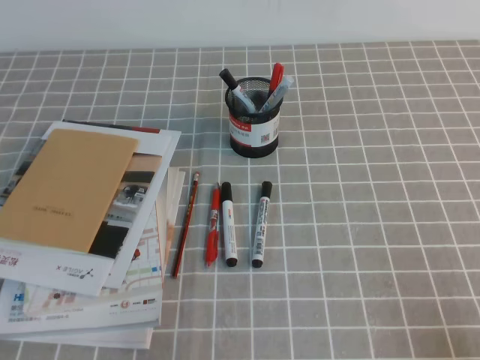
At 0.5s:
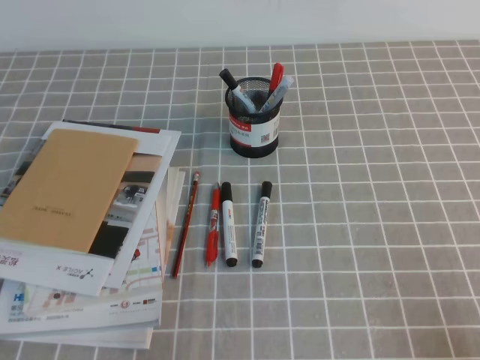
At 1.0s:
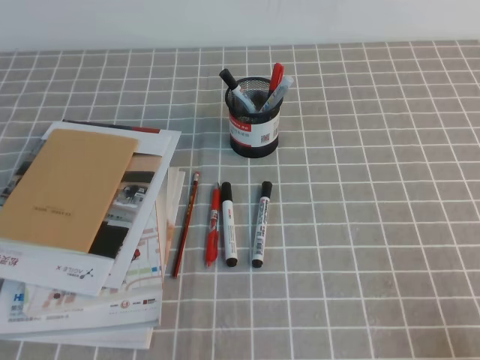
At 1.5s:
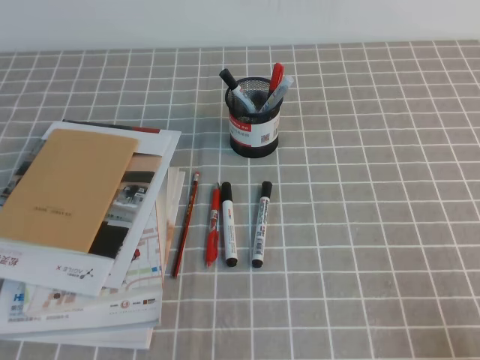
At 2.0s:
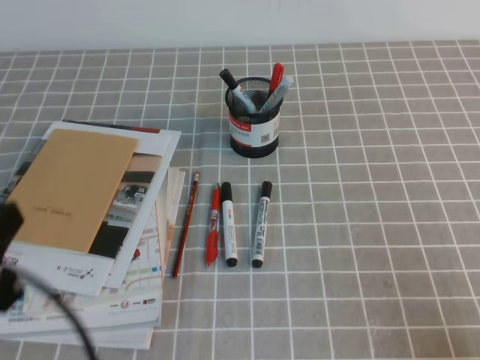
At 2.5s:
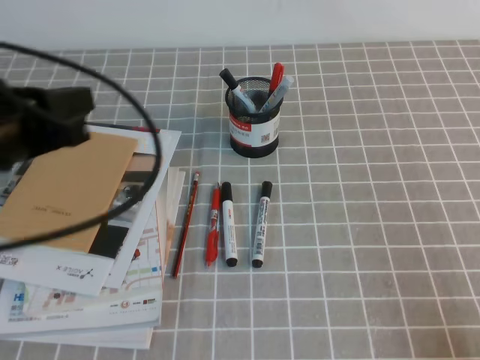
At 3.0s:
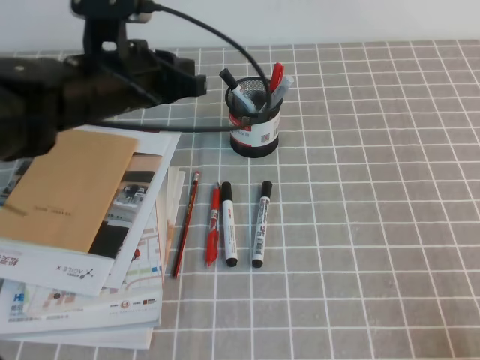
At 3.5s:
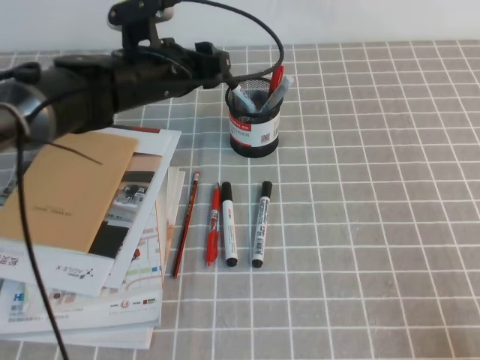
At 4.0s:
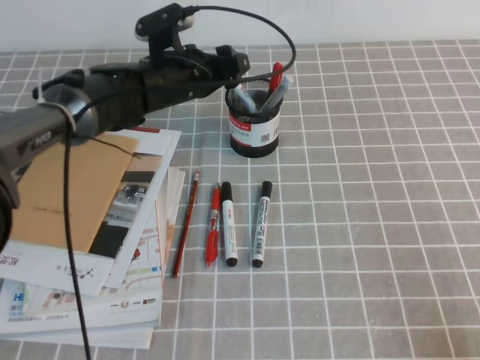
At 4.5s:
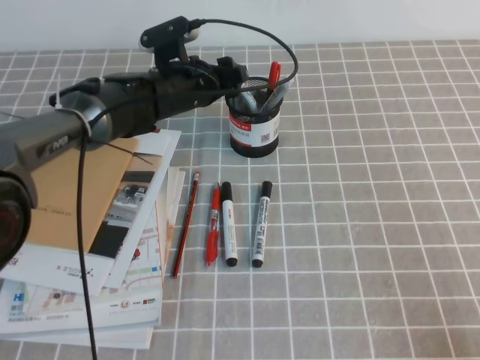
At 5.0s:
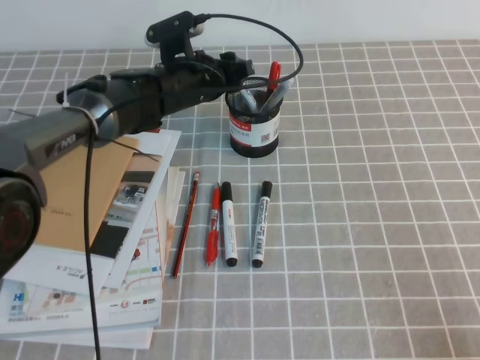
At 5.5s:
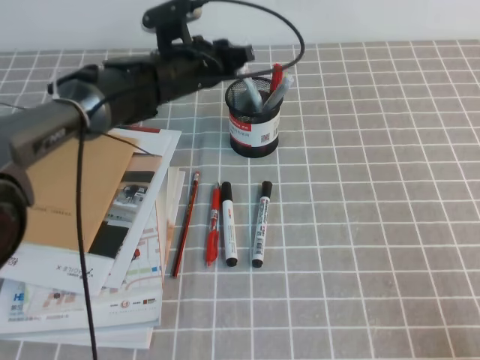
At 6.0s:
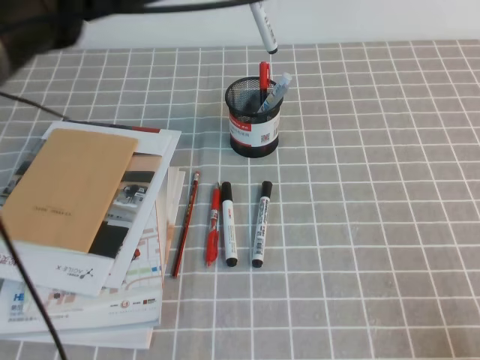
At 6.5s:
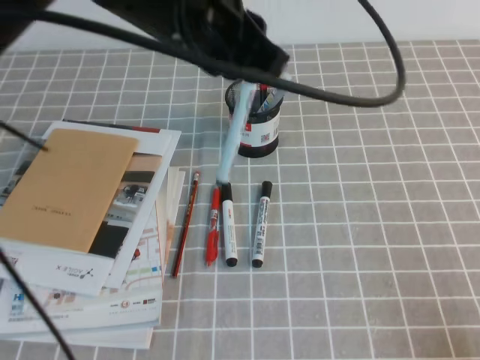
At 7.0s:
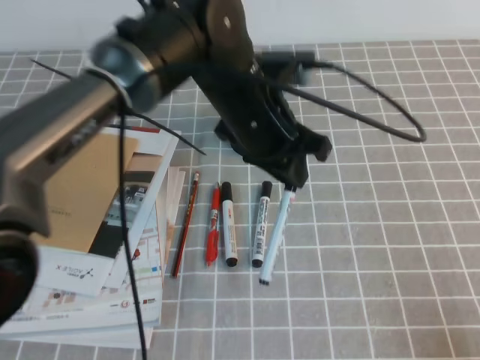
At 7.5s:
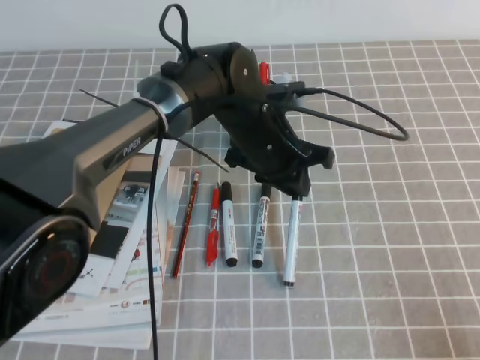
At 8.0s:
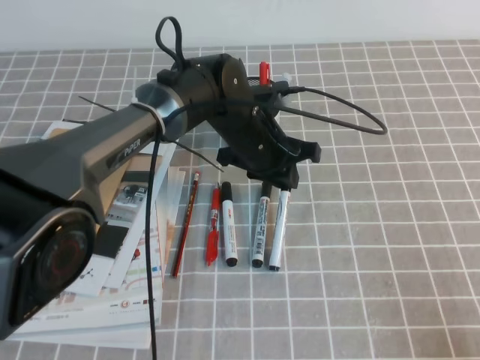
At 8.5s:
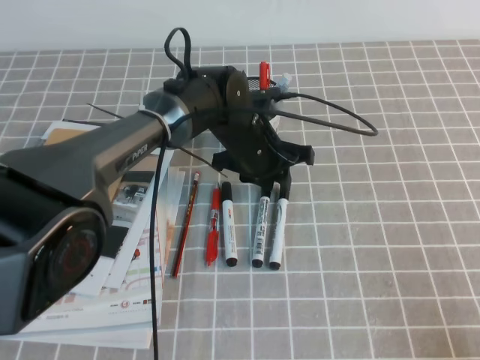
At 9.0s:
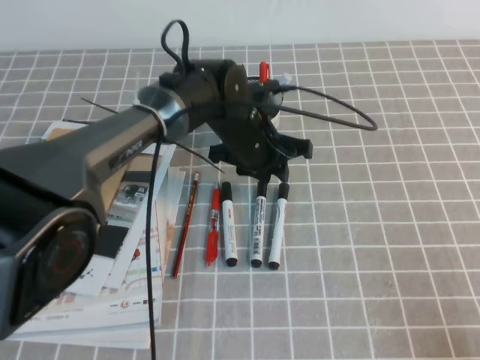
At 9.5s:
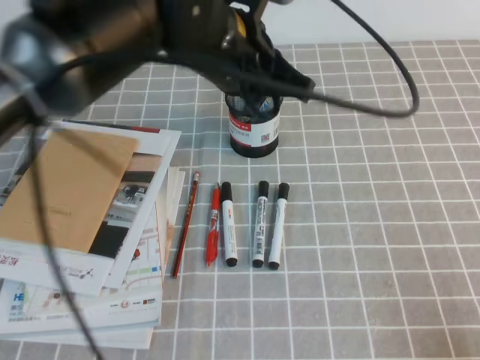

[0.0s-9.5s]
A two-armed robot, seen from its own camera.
0.0s to 2.0s: The left gripper shifts some 15 cm upward.
2.0s to 4.0s: The left gripper goes about 40 cm forward and to the right, and opens up.
4.0s to 5.5s: The left gripper closes its fingers.
5.5s to 7.5s: The left gripper shifts some 15 cm backward and to the right, and reaches some 15 cm upward, then returns.
7.5s to 9.5s: The left gripper travels upward by some 15 cm.

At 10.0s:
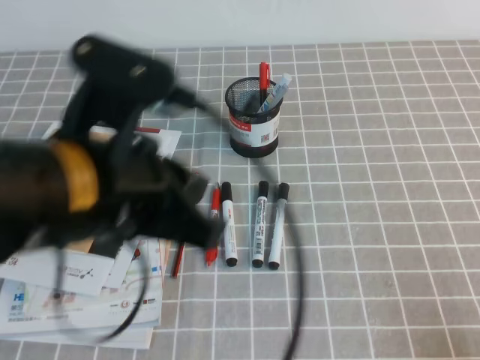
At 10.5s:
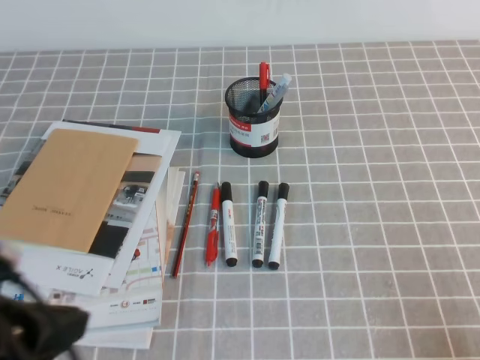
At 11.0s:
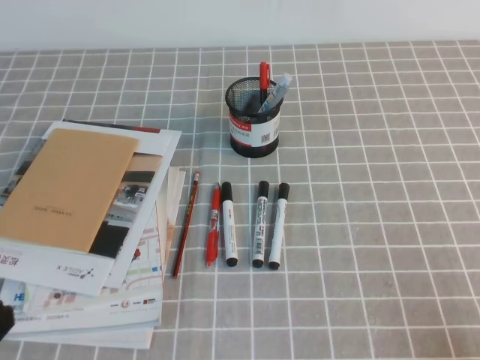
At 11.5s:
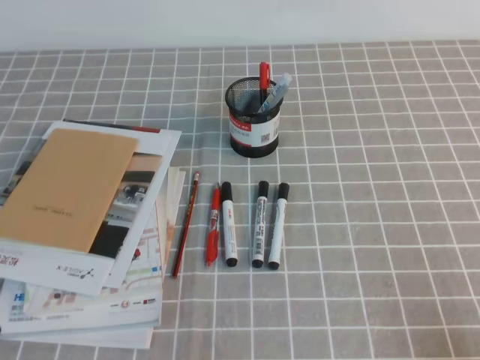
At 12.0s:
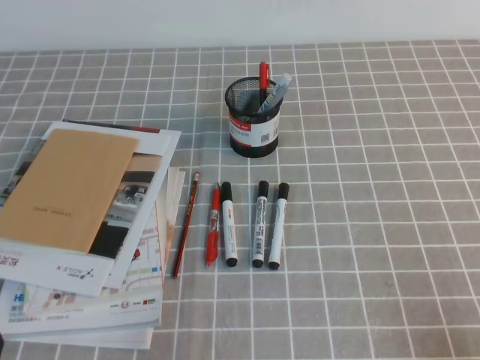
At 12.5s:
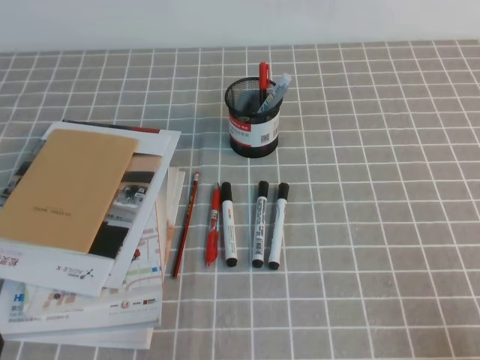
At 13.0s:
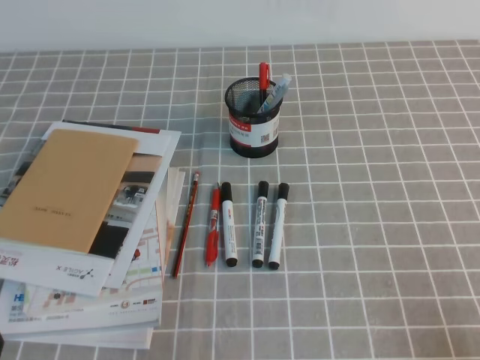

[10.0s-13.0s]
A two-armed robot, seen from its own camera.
Step, 10.0s to 13.0s: Pick up the pen from the pen holder.
10.0s to 11.5s: The left gripper goes some 25 cm downward, to the left and backward.

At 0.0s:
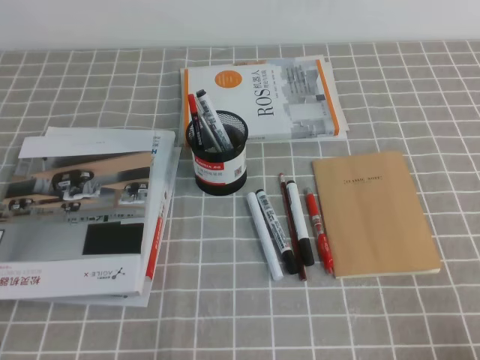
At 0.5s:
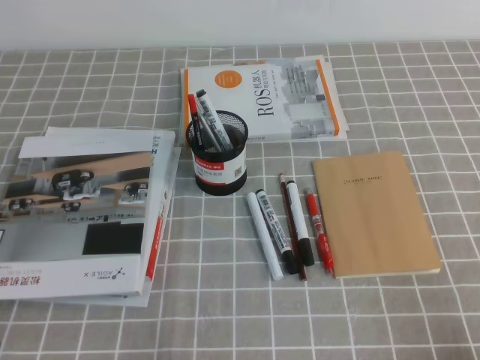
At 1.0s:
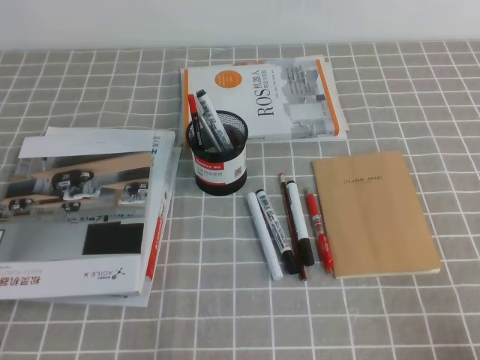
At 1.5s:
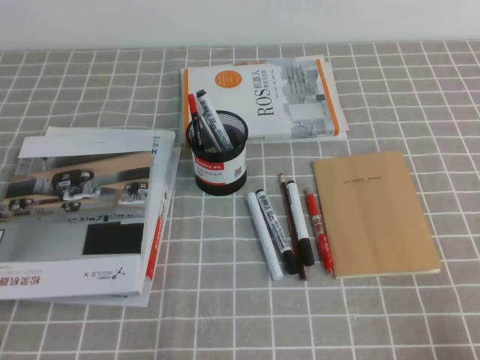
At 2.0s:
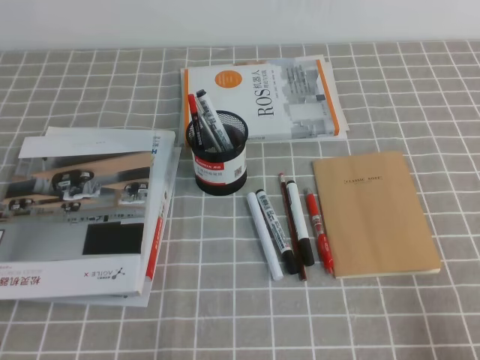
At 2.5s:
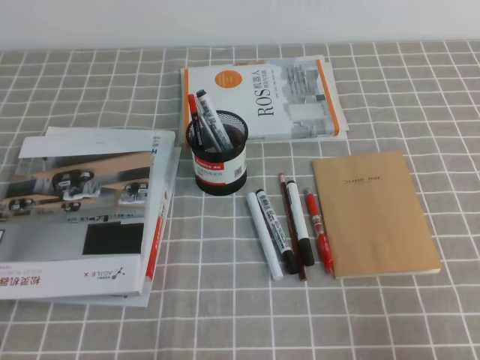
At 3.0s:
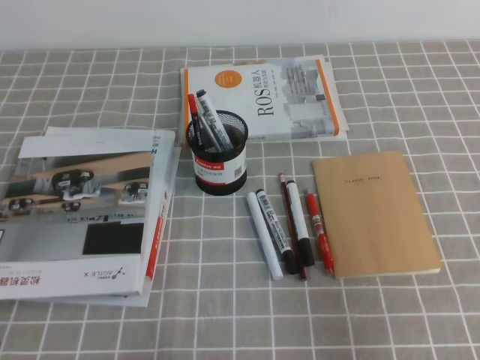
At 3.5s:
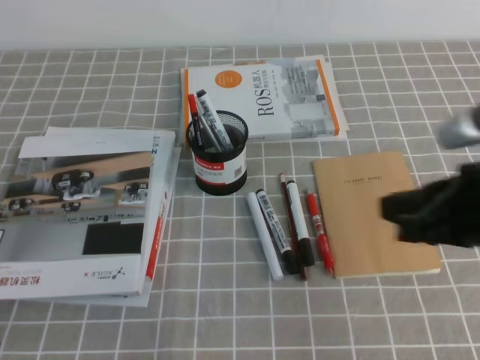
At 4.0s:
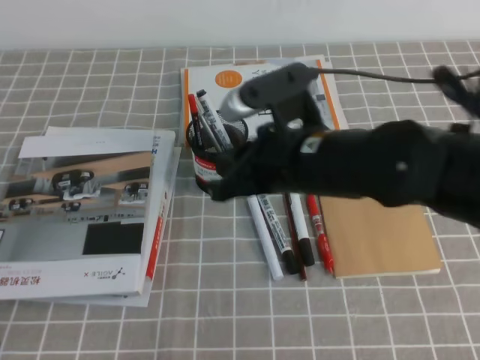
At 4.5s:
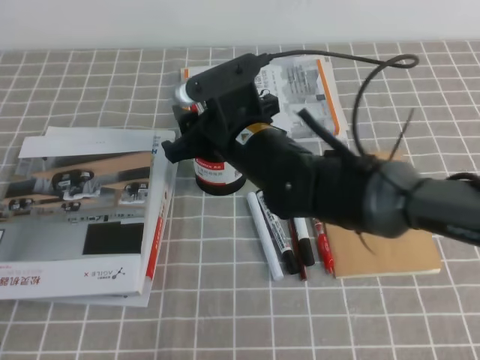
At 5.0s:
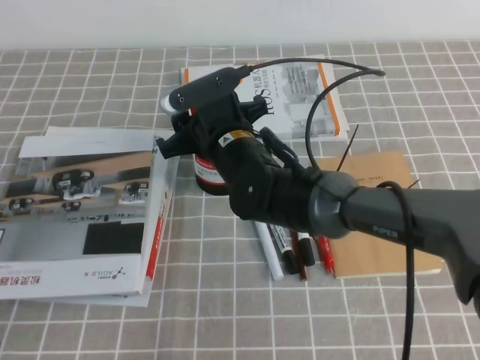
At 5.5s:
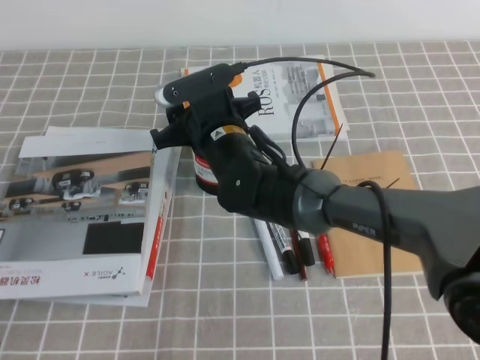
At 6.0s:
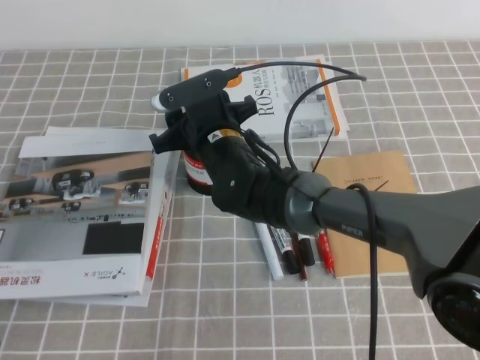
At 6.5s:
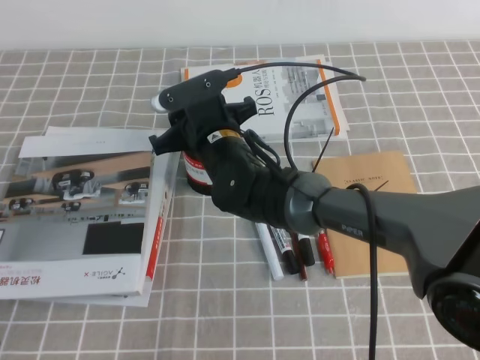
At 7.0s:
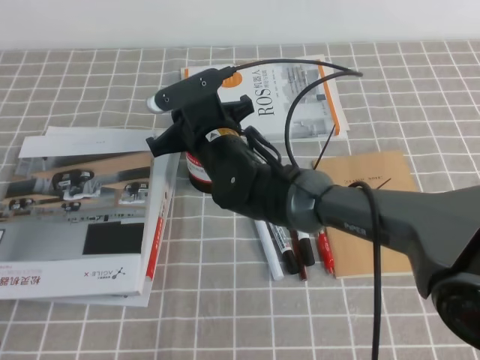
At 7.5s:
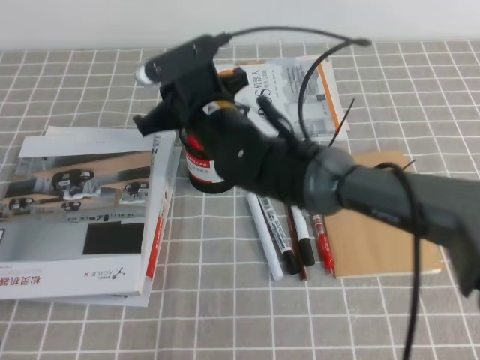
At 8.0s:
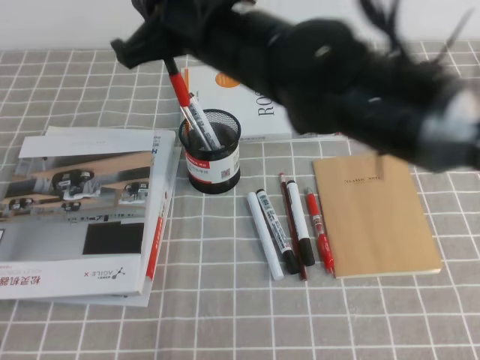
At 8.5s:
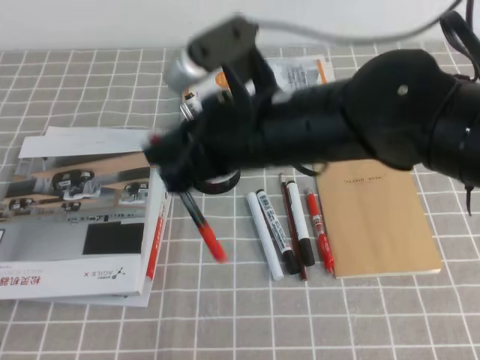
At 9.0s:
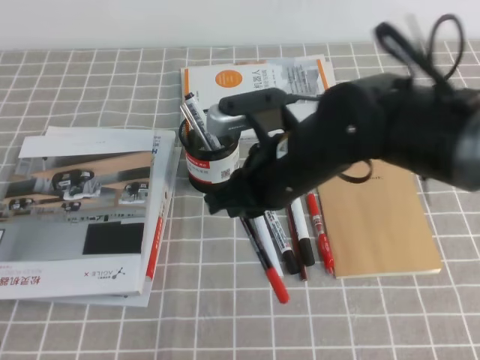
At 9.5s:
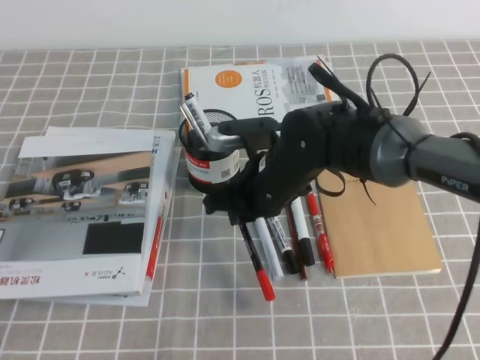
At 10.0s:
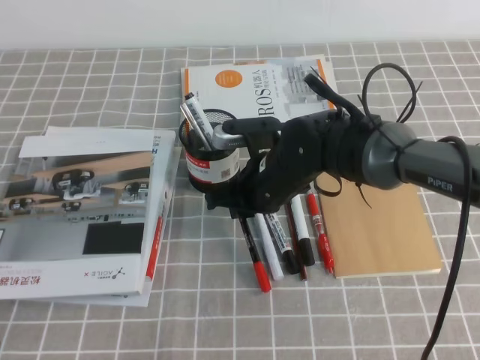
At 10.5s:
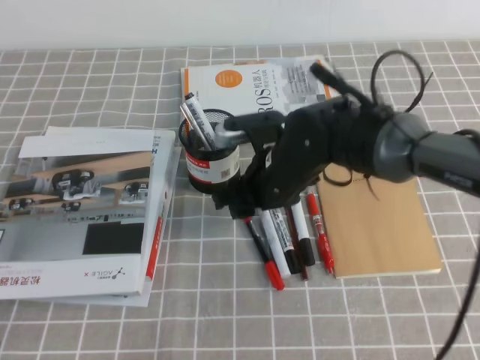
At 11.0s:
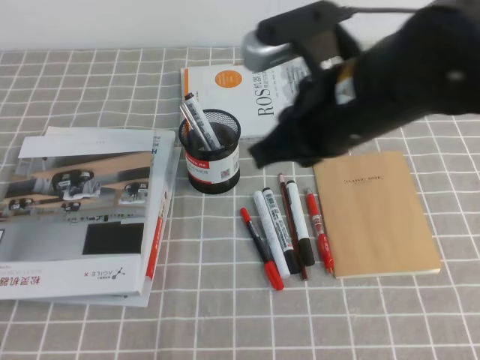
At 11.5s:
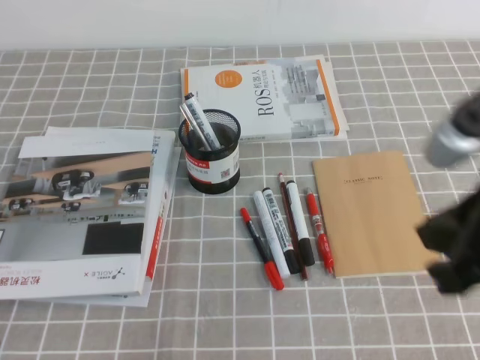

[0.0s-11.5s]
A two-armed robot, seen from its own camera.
2.0s to 4.0s: The right gripper travels to the left and forward by some 30 cm.
4.0s to 6.0s: The right gripper moves forward, to the left and downward, some 20 cm, and opens its fingers.
6.0s to 7.5s: The right gripper travels upward by approximately 5 cm, and closes.
7.5s to 9.5s: The right gripper heads to the right, covering some 5 cm, and travels upward and back again, some 10 cm each way.
9.5s to 11.5s: The right gripper is displaced backward, to the right and upward by approximately 30 cm, and opens, then closes again.

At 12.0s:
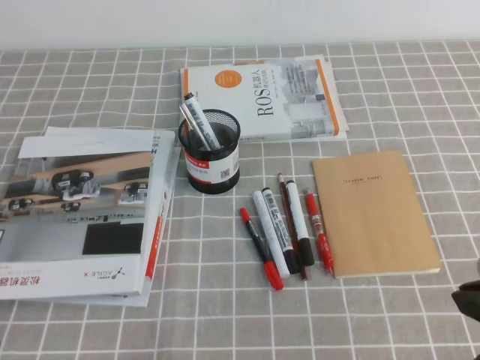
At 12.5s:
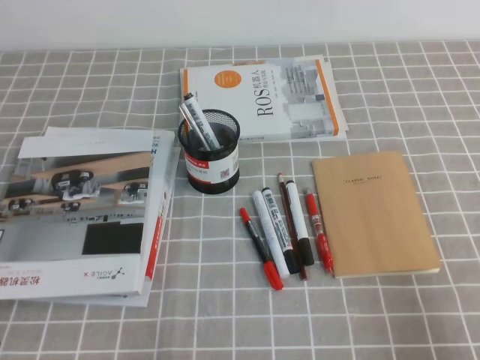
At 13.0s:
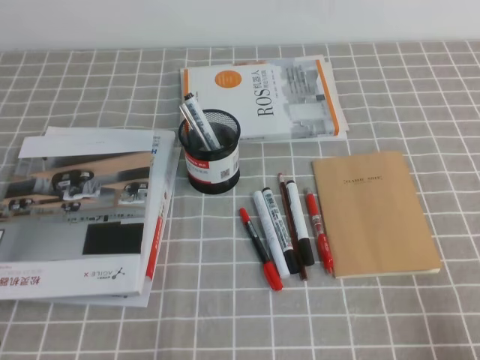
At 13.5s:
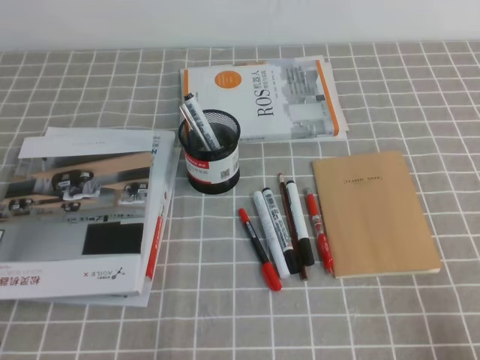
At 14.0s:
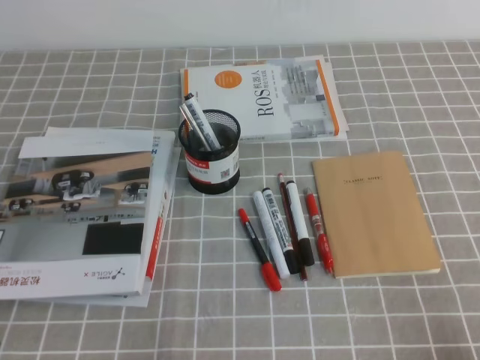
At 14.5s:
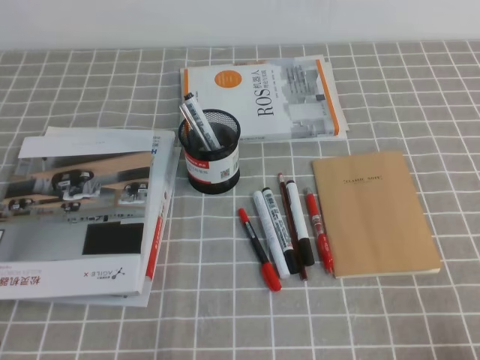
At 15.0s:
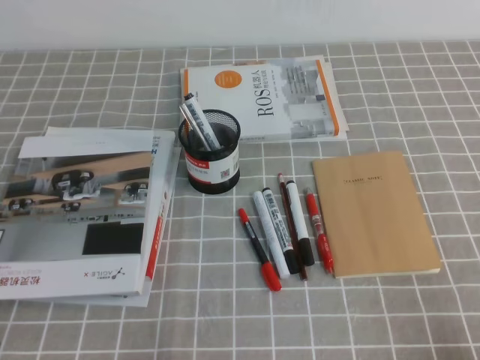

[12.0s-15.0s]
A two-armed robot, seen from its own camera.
Step, 12.0s to 15.0s: Pick up the pen from the pen holder.
12.0s to 13.5s: The right gripper travels downward, to the right and backward by roughly 15 cm.
